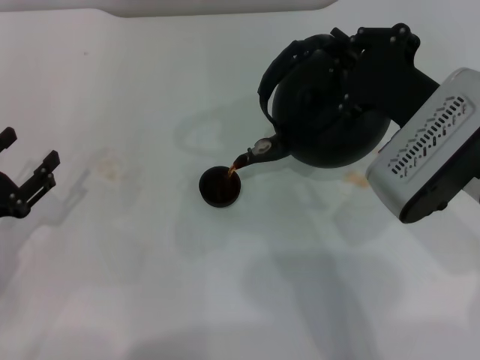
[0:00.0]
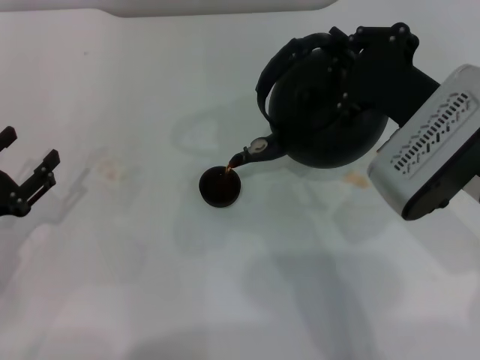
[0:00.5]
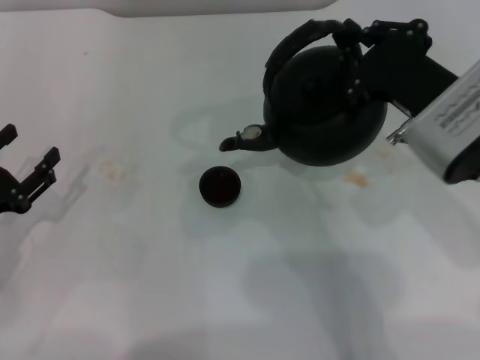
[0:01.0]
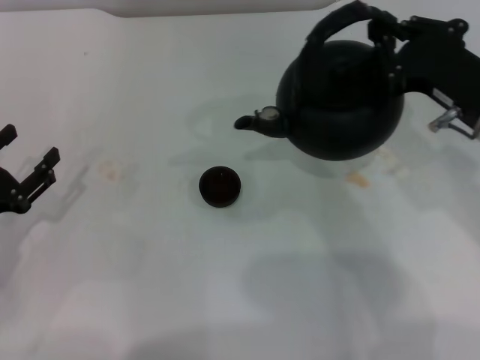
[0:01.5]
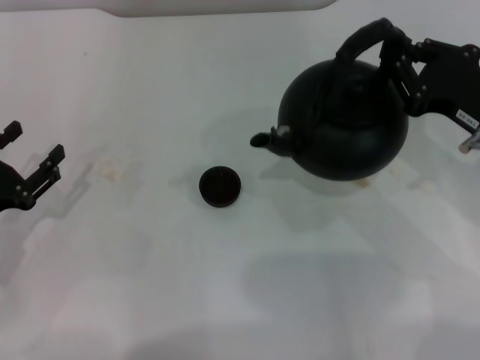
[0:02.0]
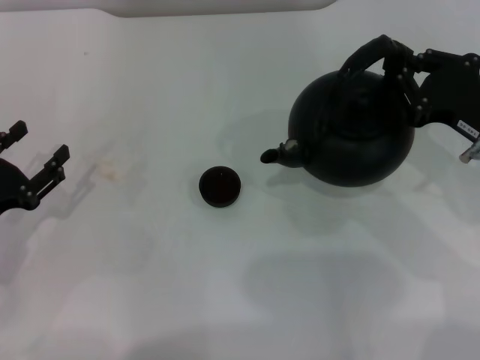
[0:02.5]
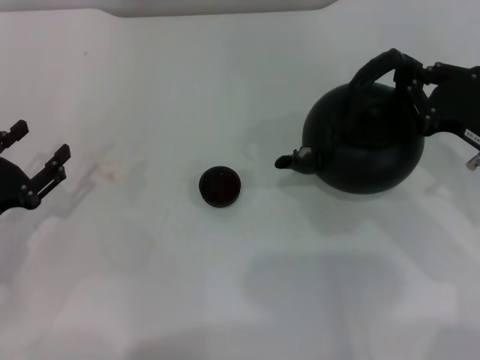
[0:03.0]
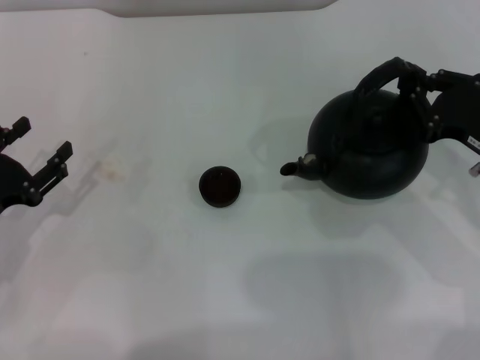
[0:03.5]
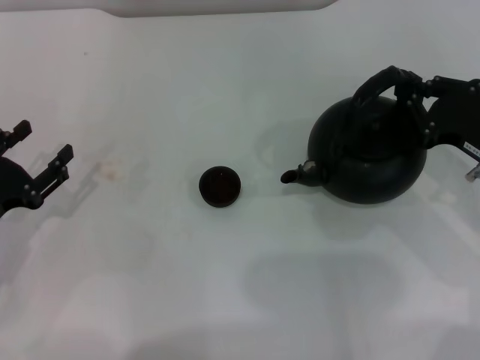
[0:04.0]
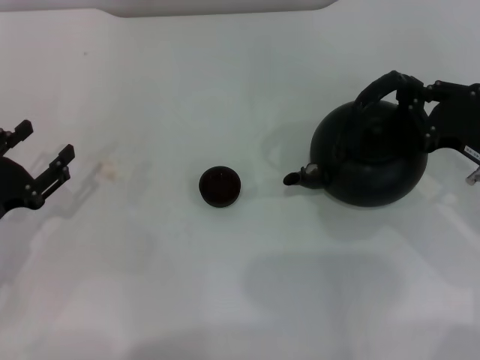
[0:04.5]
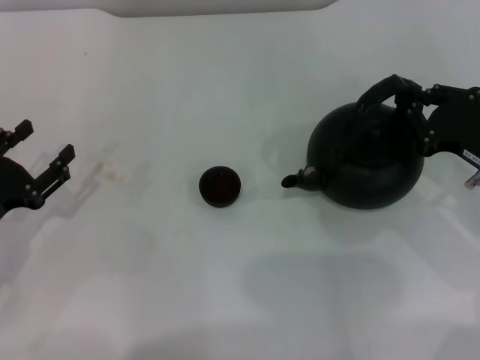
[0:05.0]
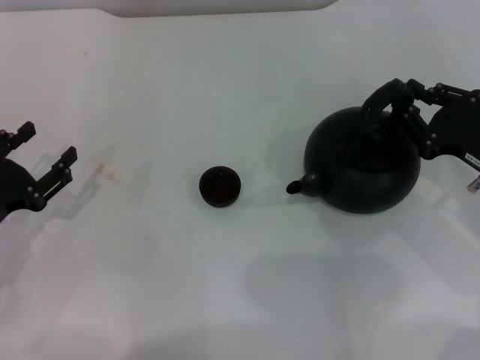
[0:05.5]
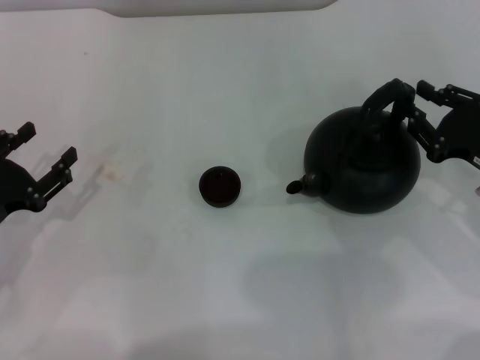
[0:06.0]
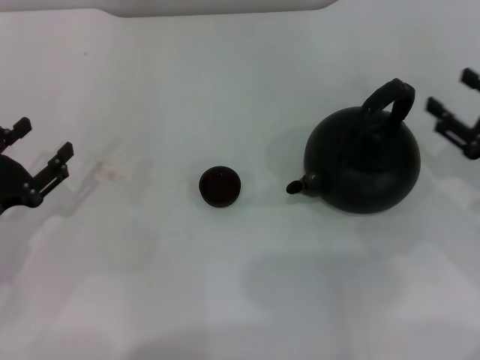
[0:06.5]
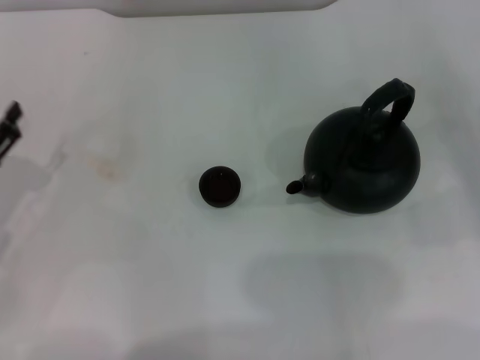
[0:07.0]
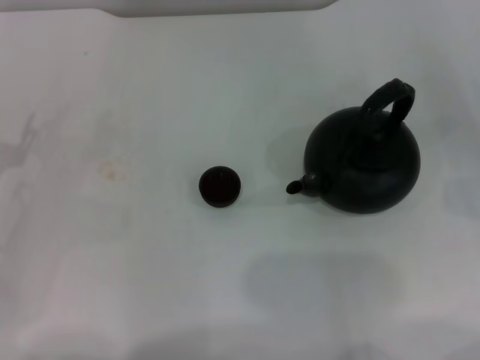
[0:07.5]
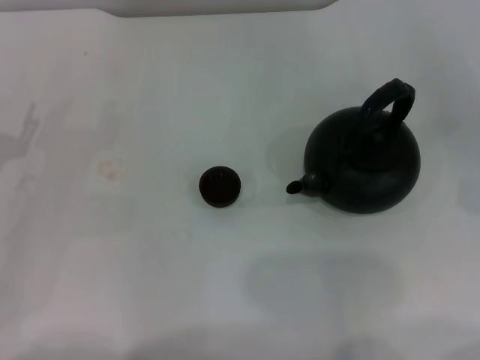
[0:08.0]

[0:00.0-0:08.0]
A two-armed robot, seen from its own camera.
Task of the whole recording: Grasp the handle of the teapot with one hand and pour tea into the teacup.
Step, 0:01.5 to 0:06.5: Put down the teapot with the right gripper.
0:00.0 to 0:02.0: The right gripper shifts roughly 10 cm to the right.
0:02.0 to 0:04.0: The grippers stay close to where they were, moving slightly.
0:04.0 to 0:06.0: The grippers make only small movements.
0:06.0 to 0:08.0: The left gripper changes place by about 5 cm. Meanwhile the right gripper shifts some 15 cm to the right, and opens up.
